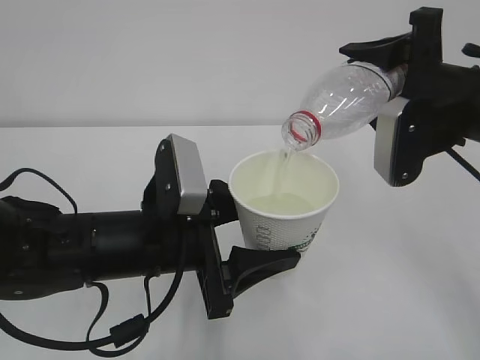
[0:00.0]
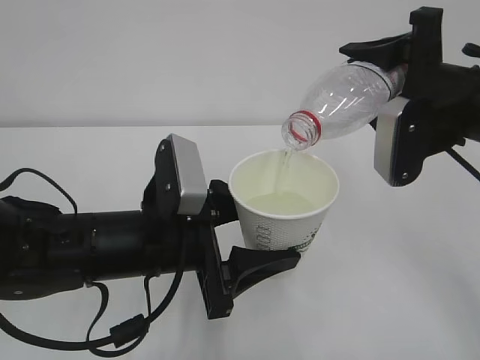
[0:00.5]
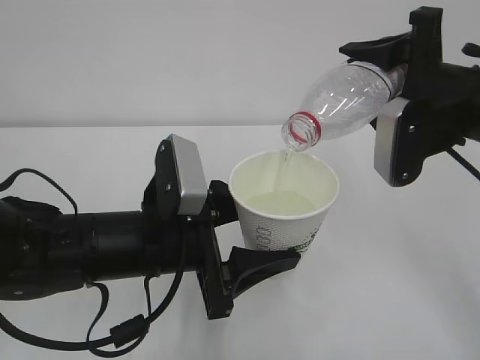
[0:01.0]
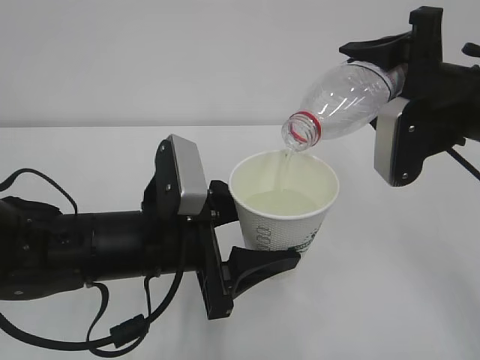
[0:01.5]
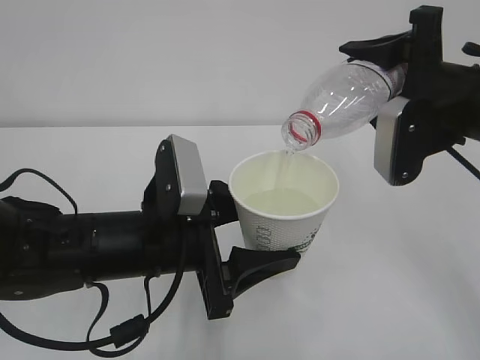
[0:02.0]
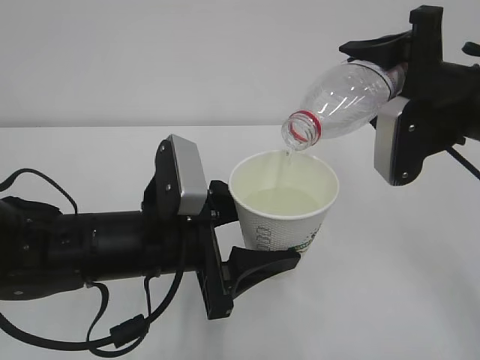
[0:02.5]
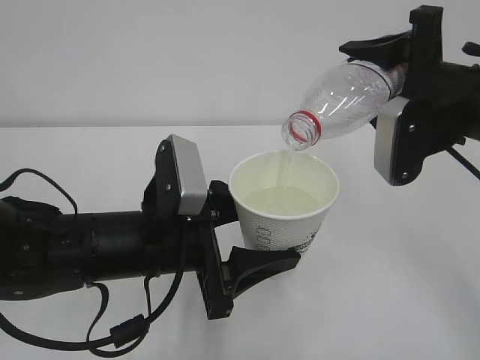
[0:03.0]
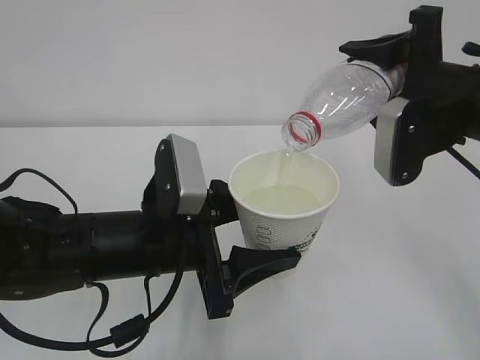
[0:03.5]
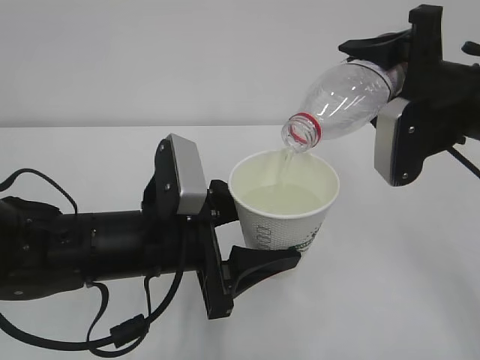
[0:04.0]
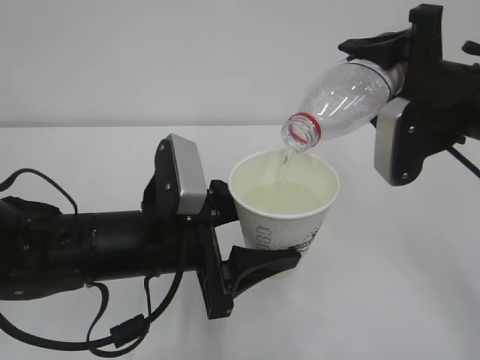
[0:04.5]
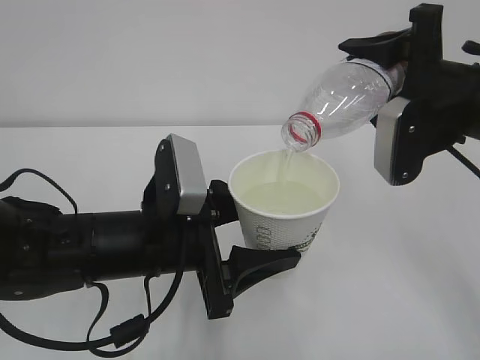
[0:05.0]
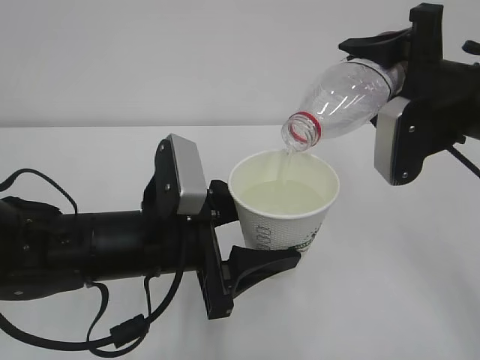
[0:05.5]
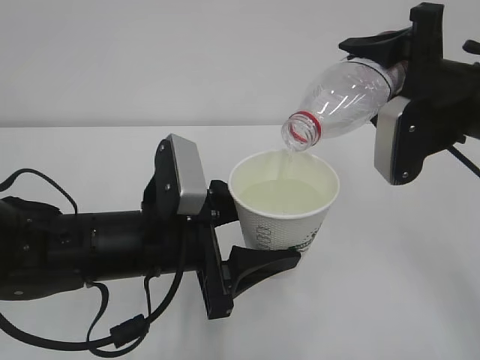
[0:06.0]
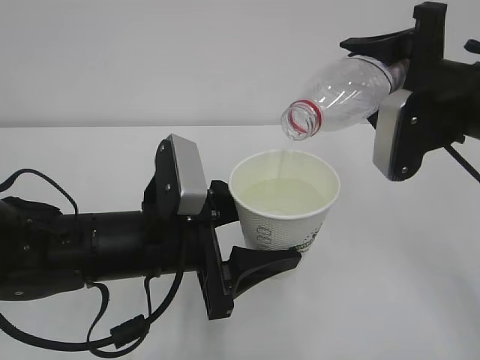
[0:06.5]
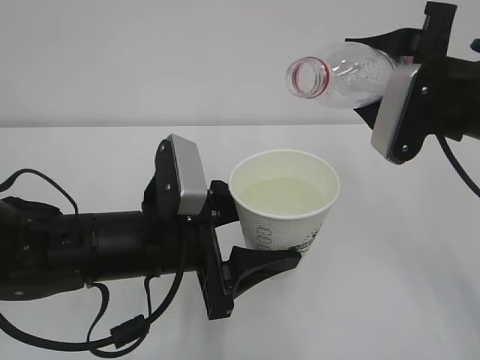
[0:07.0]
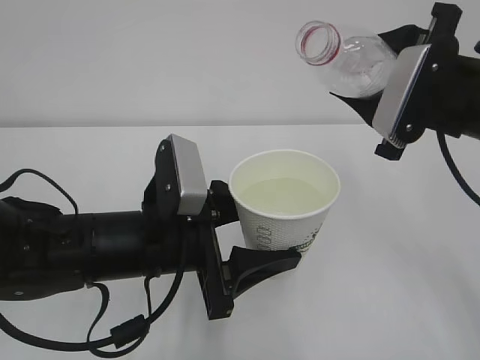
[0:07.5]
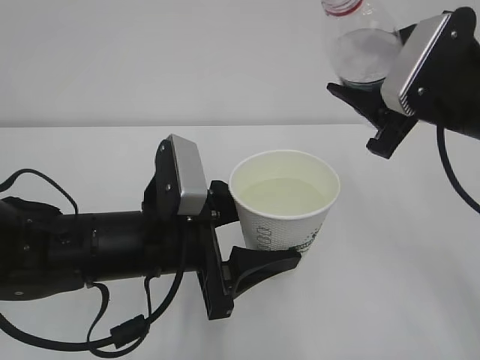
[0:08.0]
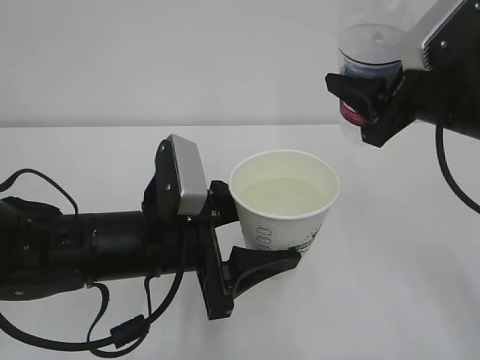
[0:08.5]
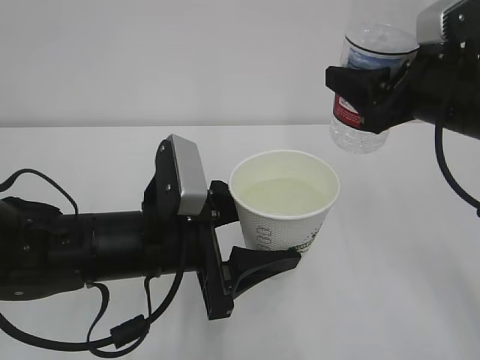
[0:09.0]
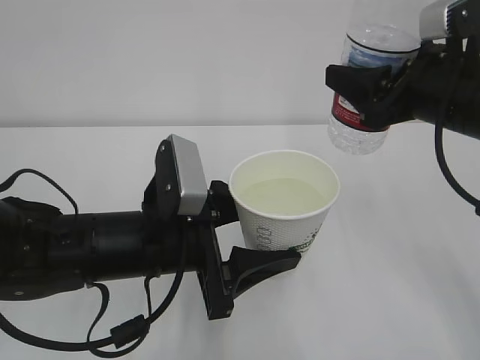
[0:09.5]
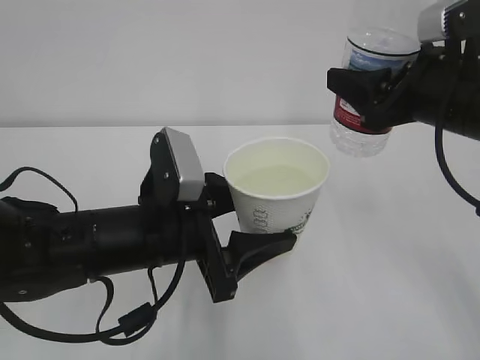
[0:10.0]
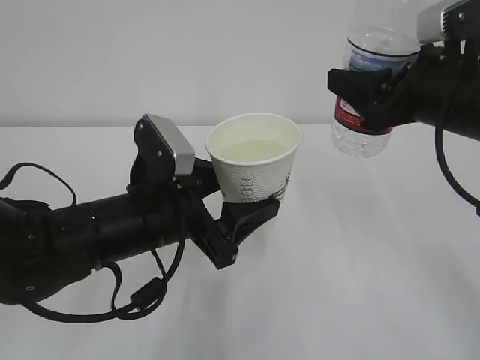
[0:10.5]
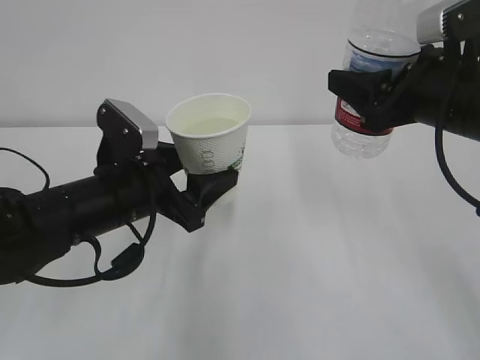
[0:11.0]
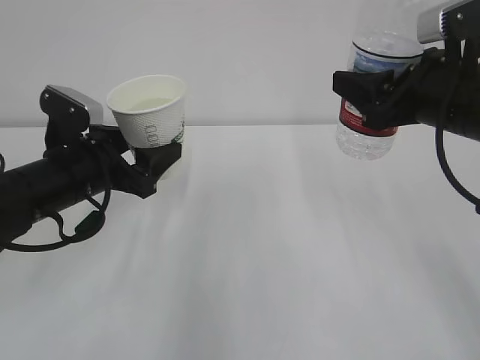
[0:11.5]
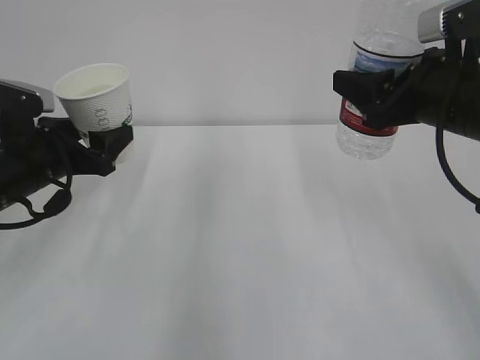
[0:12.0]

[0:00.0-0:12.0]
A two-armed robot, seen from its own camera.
0:00.0 to 0:06.0: Both grippers stay about where they are.
0:10.0 to 0:12.0: The left gripper shifts some 20 cm to the left and forward.

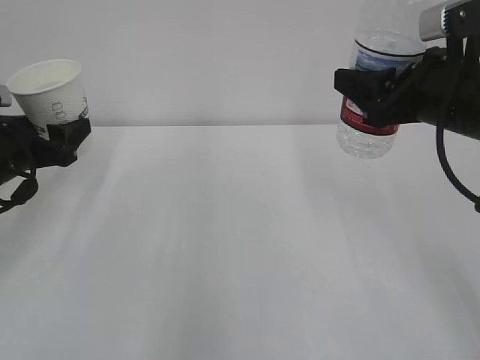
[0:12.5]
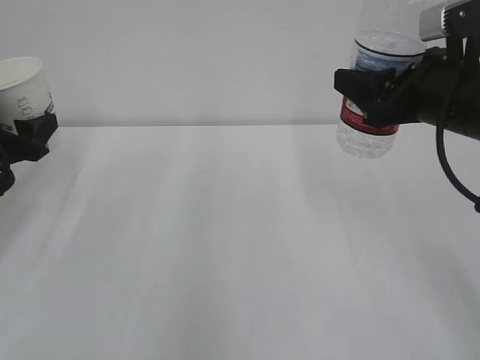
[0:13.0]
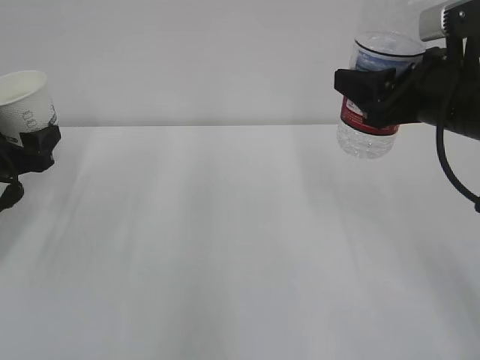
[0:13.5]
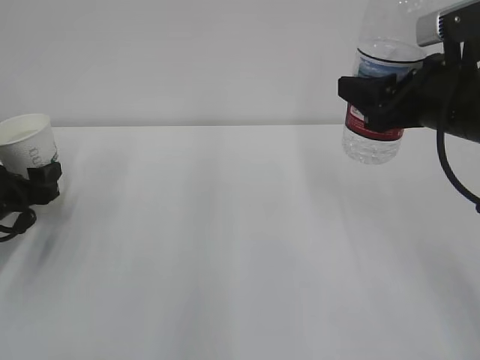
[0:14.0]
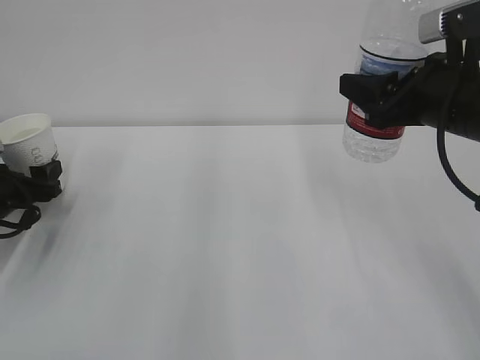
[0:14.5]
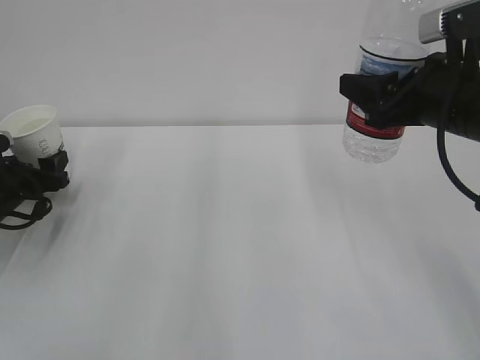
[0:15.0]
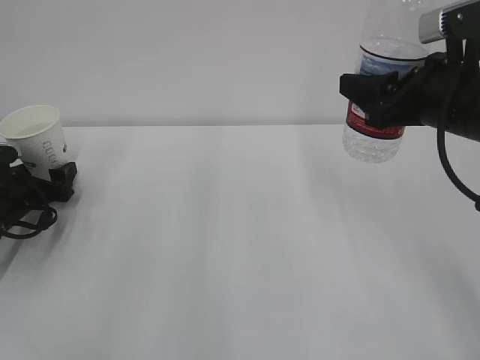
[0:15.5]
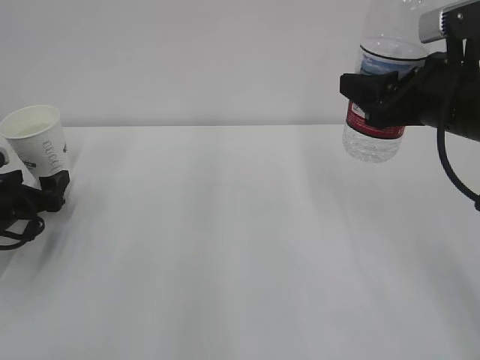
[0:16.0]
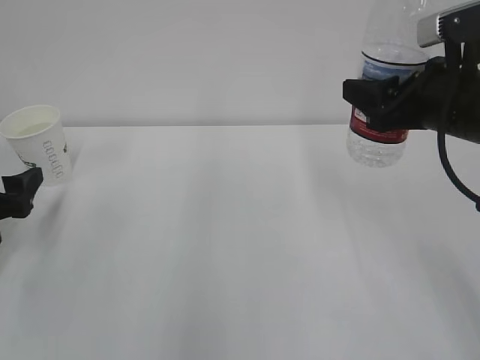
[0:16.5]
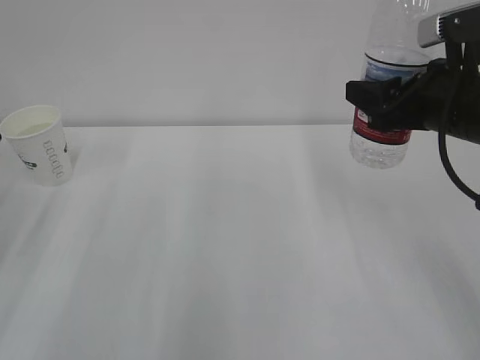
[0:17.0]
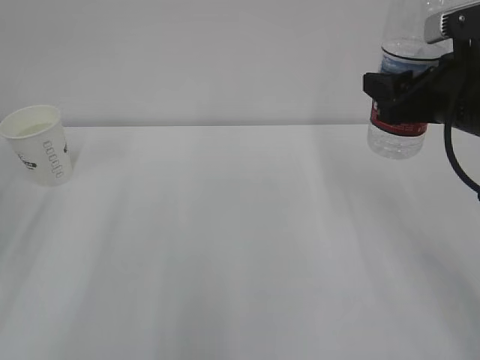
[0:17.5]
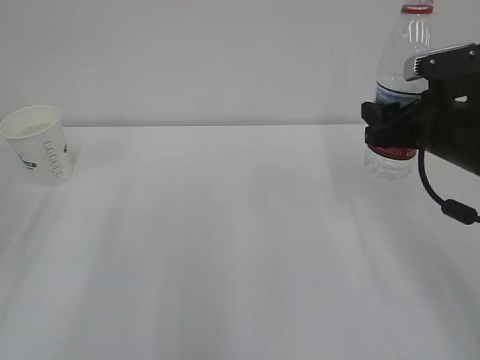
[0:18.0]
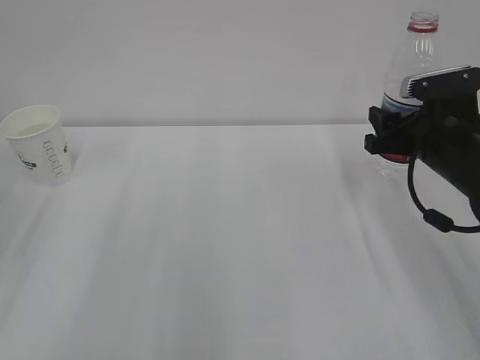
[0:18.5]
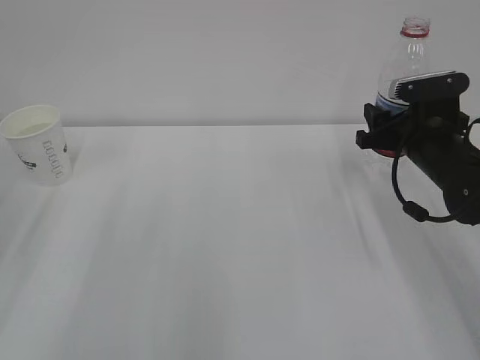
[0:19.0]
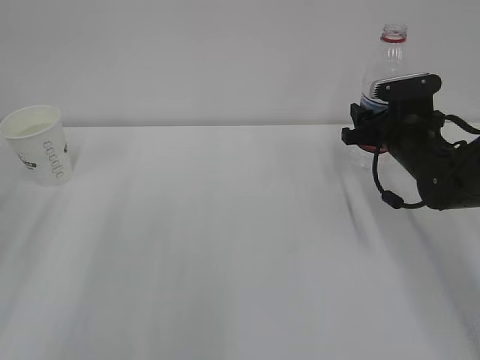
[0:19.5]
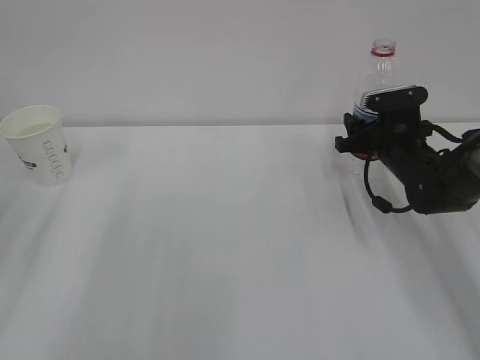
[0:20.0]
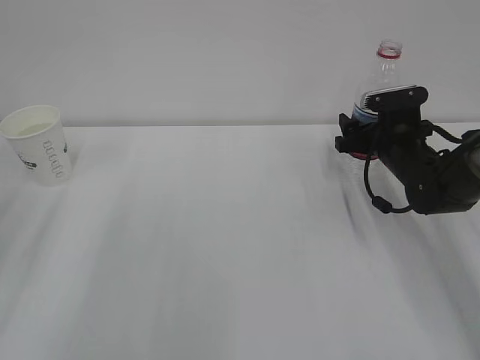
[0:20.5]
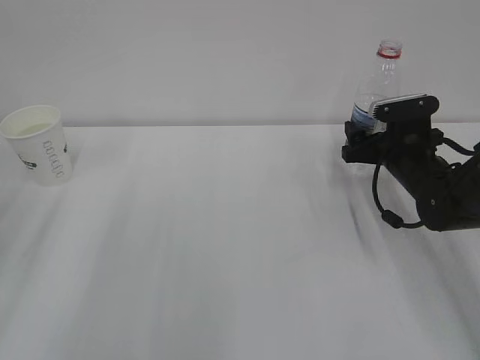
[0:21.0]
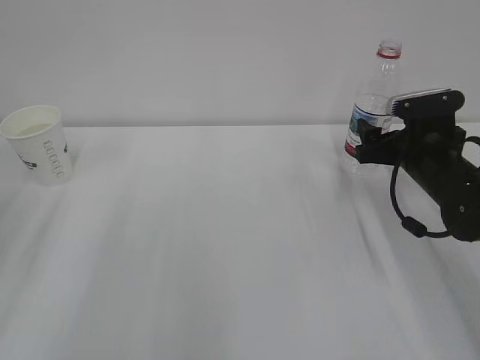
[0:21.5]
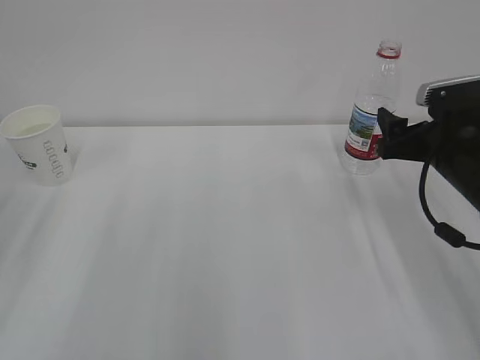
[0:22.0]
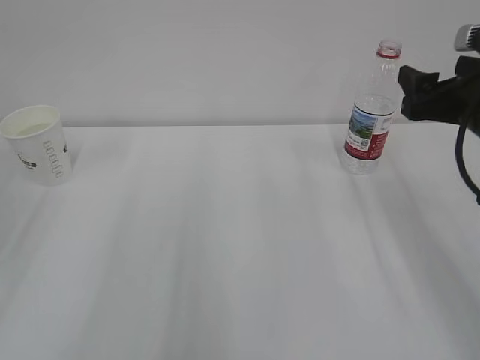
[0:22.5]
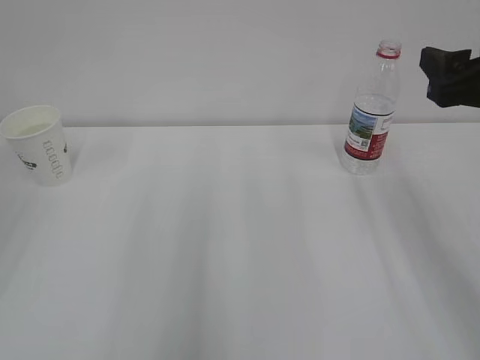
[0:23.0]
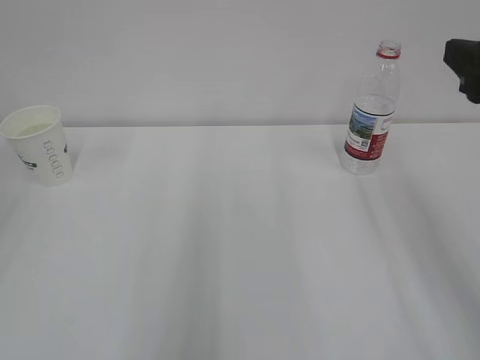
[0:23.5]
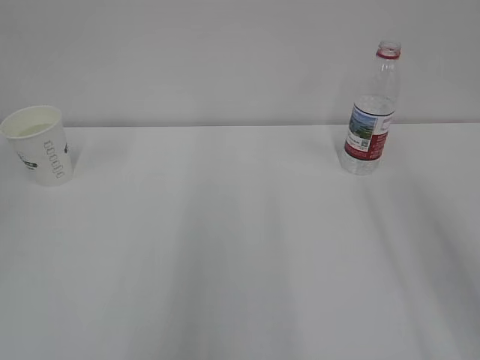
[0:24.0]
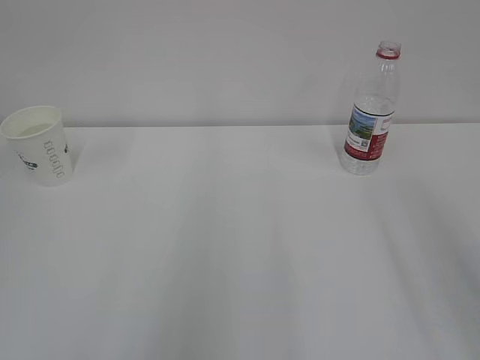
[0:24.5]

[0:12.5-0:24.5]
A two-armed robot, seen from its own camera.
0:12.5 to 0:14.5: The left gripper travels downward by roughly 10 cm.
0:14.5 to 0:16.5: The left gripper travels backward by roughly 5 cm, and opens up.
0:16.5 to 0:18.5: The right gripper is displaced downward by approximately 10 cm, while the left gripper goes about 15 cm upward and backward, and closes its fingers.
0:18.5 to 0:20.5: The right gripper heads forward and downward, covering roughly 10 cm, and opens up.
0:20.5 to 0:22.5: The right gripper is displaced upward and backward by approximately 20 cm.
0:22.5 to 0:24.5: The right gripper heads backward and upward, covering approximately 20 cm.

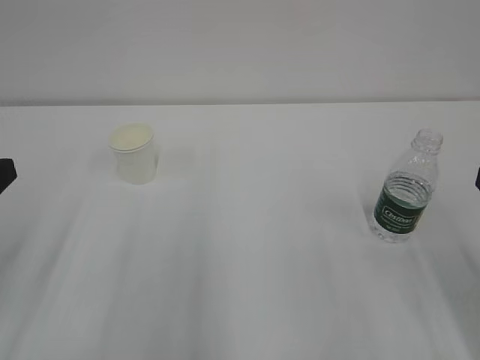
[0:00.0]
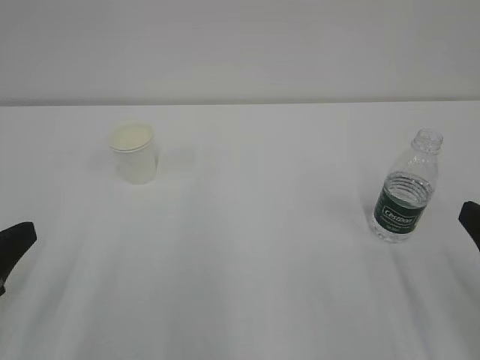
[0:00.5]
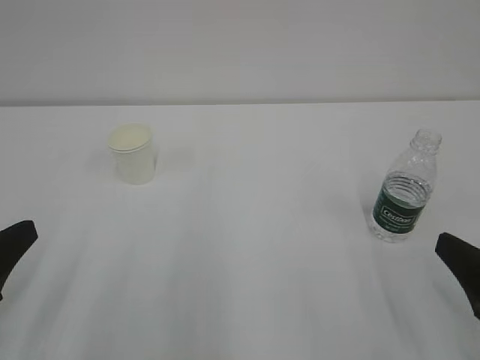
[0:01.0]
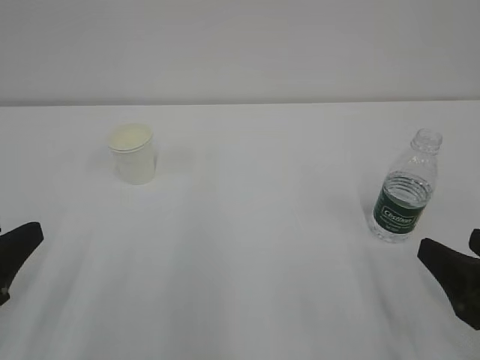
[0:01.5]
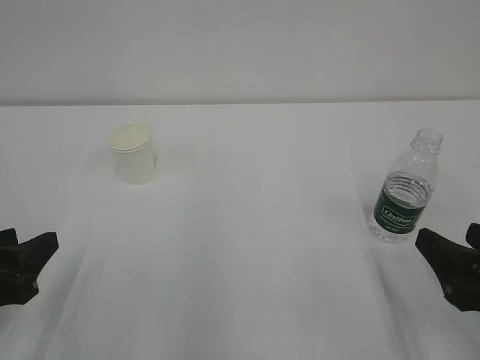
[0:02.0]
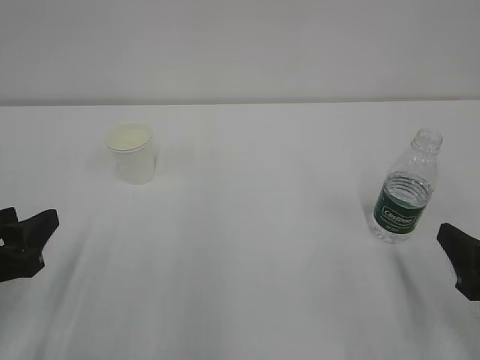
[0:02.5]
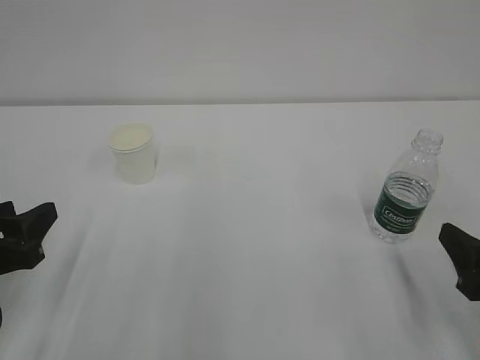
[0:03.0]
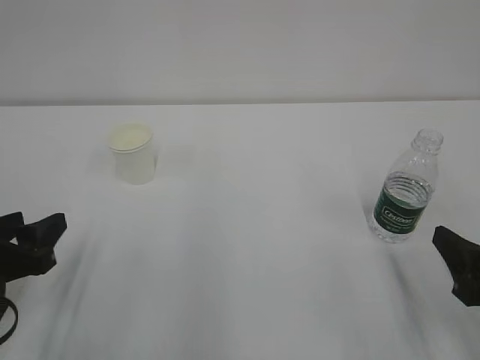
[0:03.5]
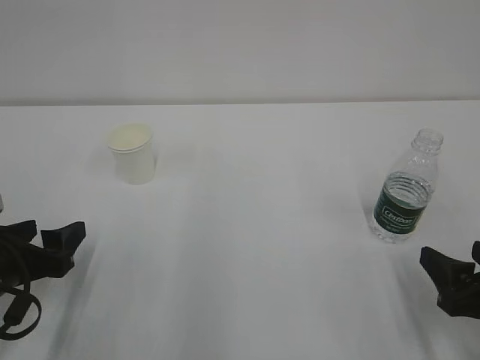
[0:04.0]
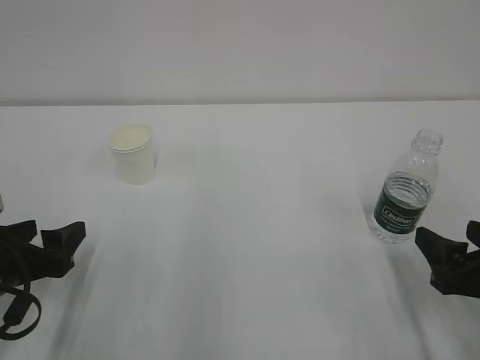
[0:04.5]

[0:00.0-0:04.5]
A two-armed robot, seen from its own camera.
0:00.0 to 0:02.0: The grippers both shift downward by some 10 cm.
0:02.0 to 0:04.5: The left gripper ends up approximately 5 cm from where it was, and opens up.
